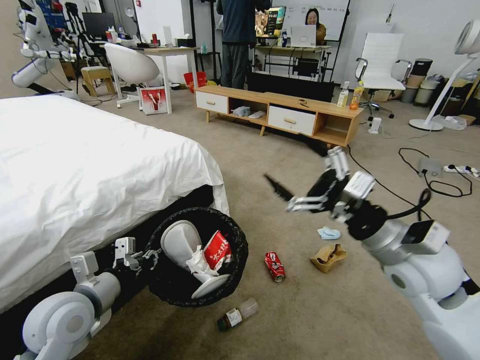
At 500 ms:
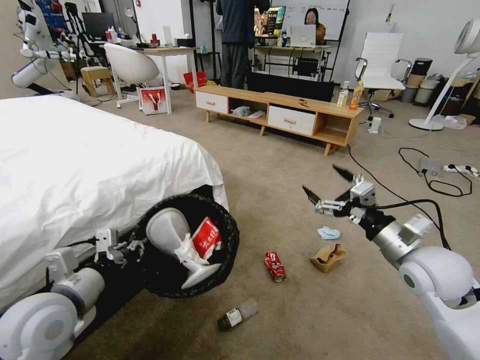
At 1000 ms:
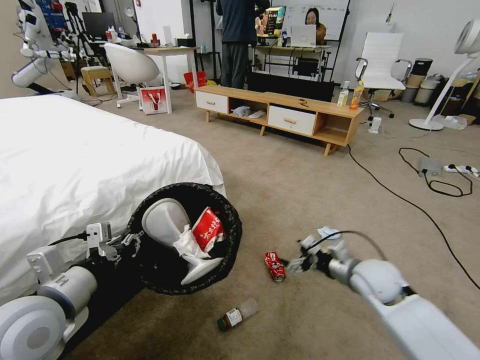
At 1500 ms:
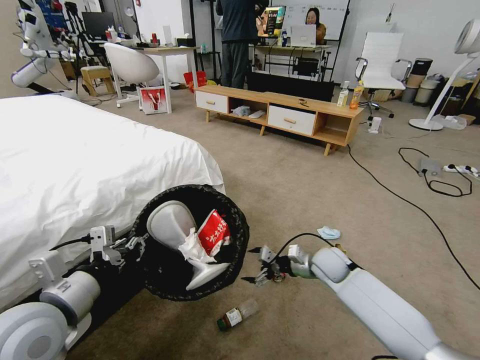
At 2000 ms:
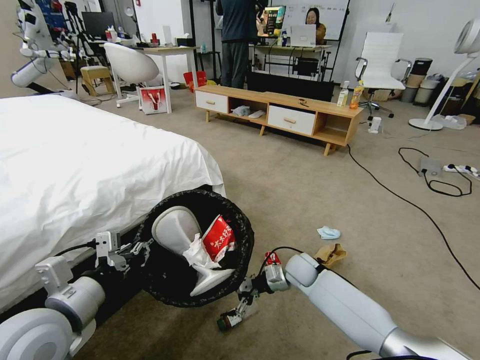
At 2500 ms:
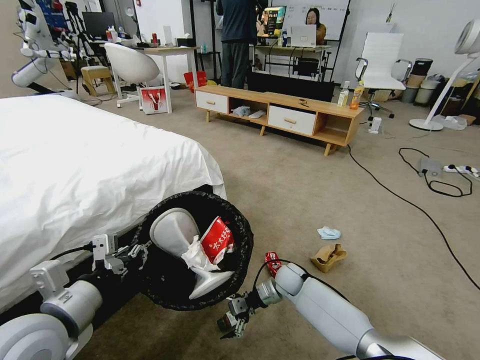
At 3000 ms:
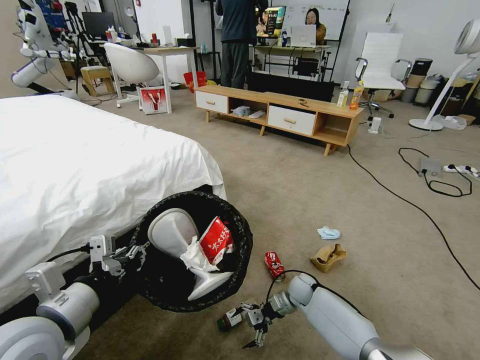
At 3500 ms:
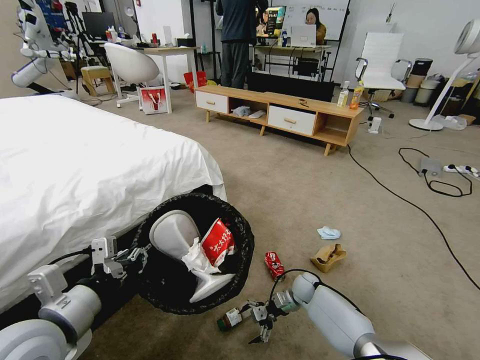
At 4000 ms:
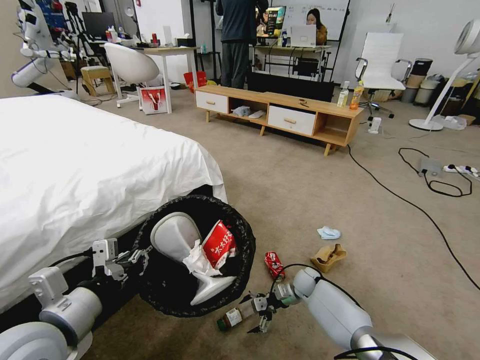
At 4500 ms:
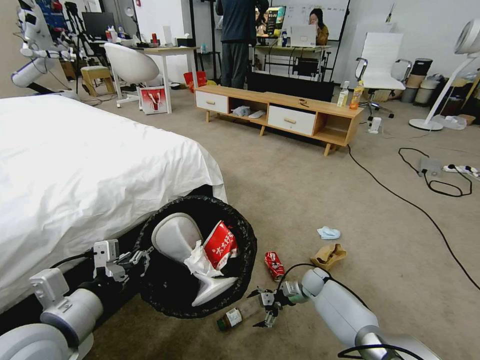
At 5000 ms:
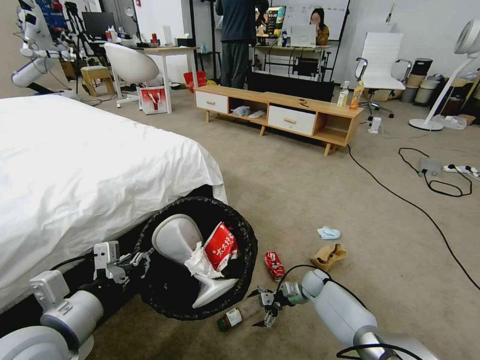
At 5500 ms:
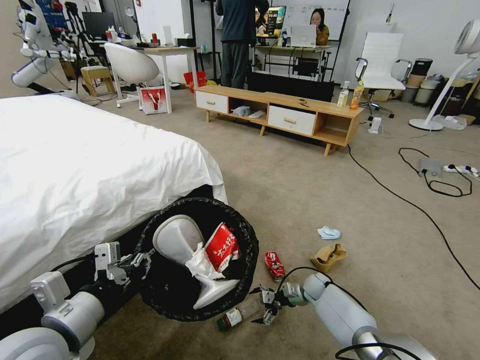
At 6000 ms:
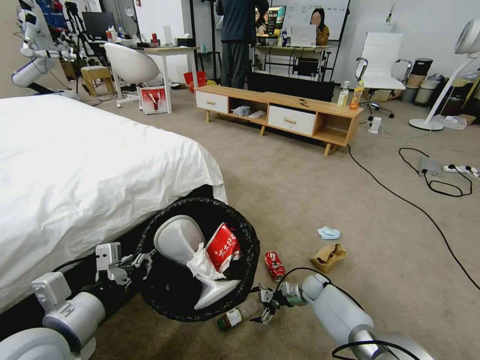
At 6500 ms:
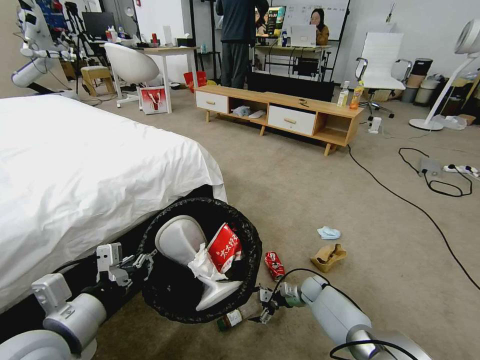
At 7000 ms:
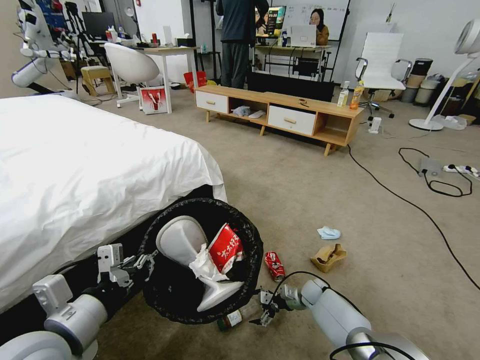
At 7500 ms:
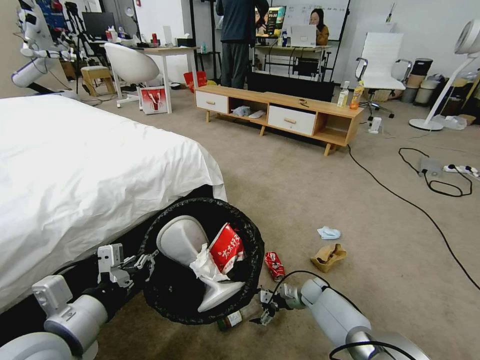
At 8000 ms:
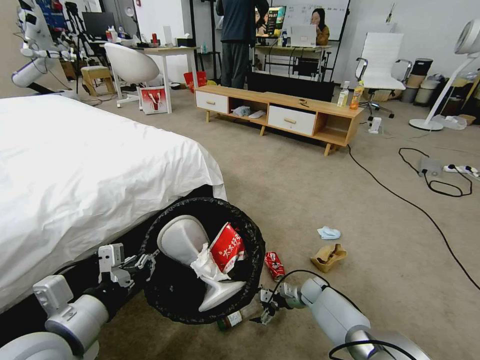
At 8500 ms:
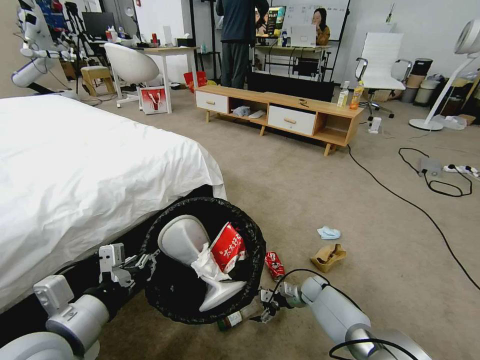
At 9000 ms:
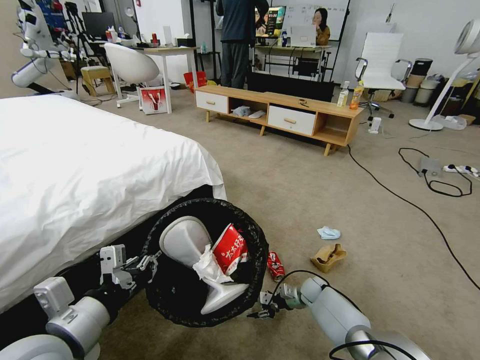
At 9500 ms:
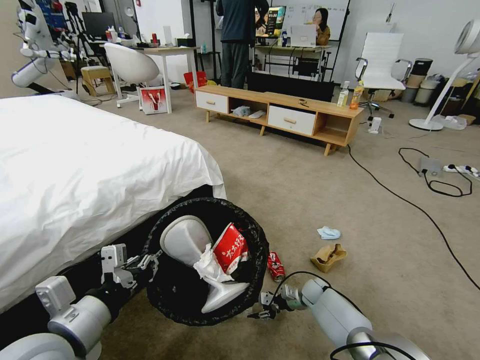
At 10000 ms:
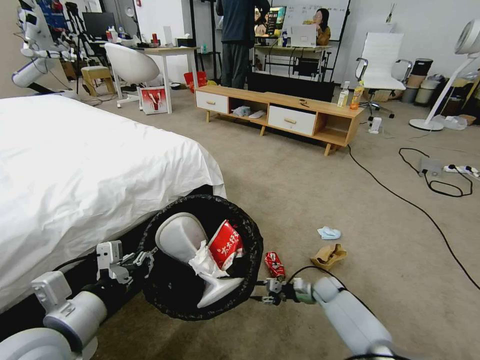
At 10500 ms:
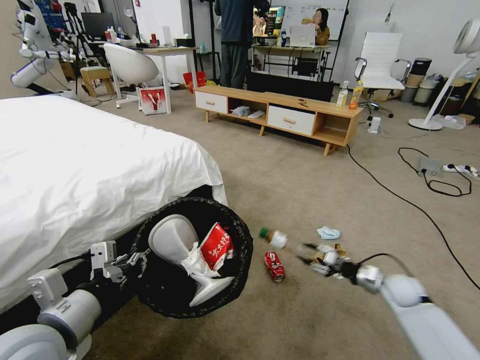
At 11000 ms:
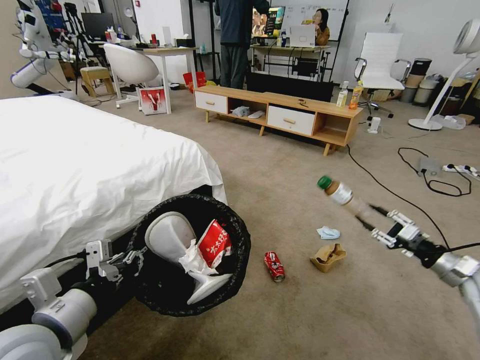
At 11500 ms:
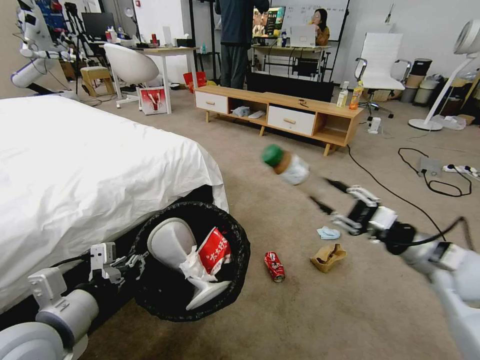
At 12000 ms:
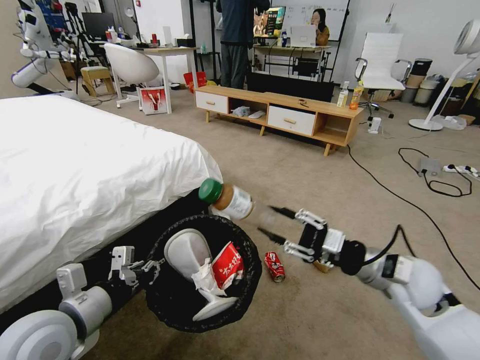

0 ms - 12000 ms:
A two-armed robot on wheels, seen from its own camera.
Task of the whole recording: Pick up the trash bin and place the garbage on the floor into it.
0 ms - 2000 ms: The left gripper is displaced backward and upward by some 5 cm; the right gripper heads downward and forward, covering some 30 cm.
2000 ms - 4000 ms: The right gripper moves downward, approximately 10 cm.
4000 ms - 6000 ms: The grippers make only small movements.
6000 ms - 8000 ms: The grippers make only small movements.
8000 ms - 10000 ms: The right gripper closes its fingers.
10000 ms - 12000 ms: The left gripper moves approximately 5 cm; the right gripper travels upward and backward by some 35 cm.

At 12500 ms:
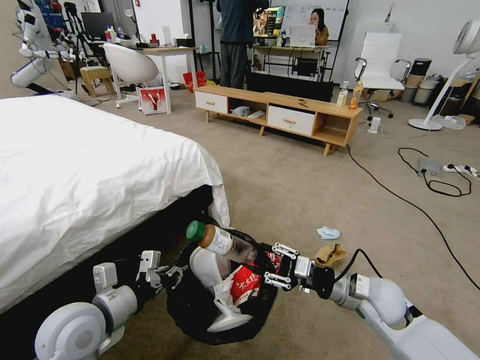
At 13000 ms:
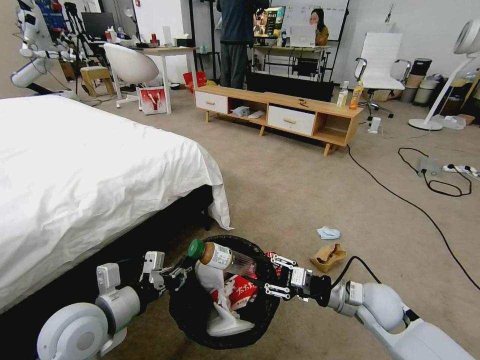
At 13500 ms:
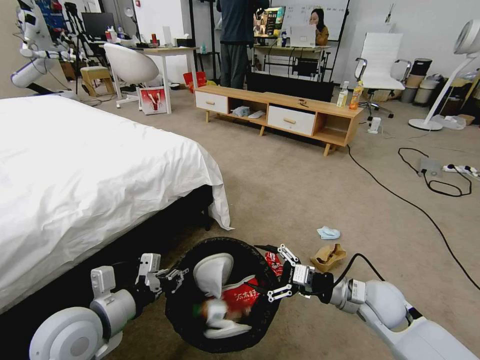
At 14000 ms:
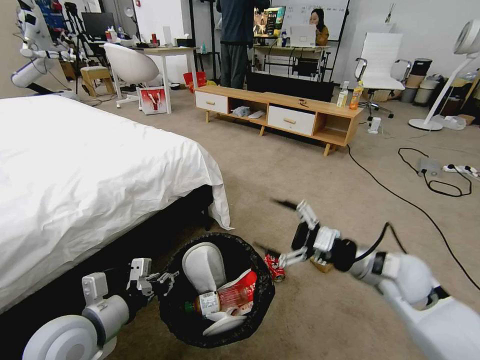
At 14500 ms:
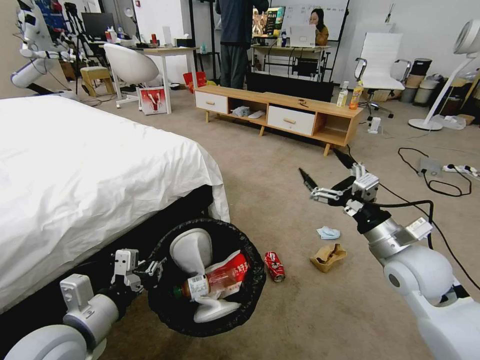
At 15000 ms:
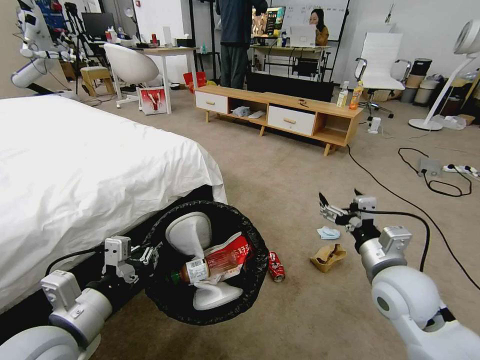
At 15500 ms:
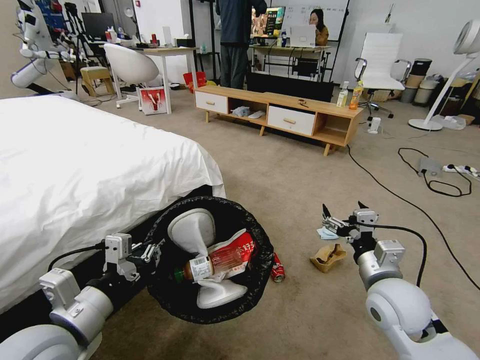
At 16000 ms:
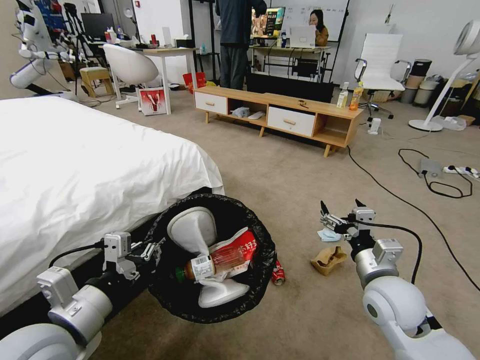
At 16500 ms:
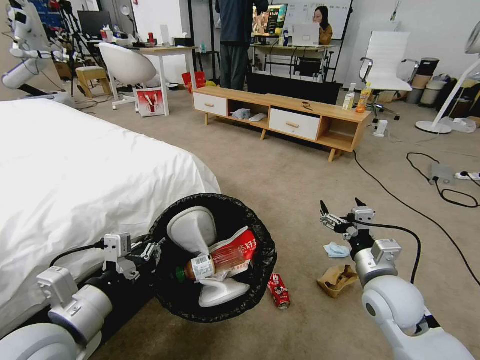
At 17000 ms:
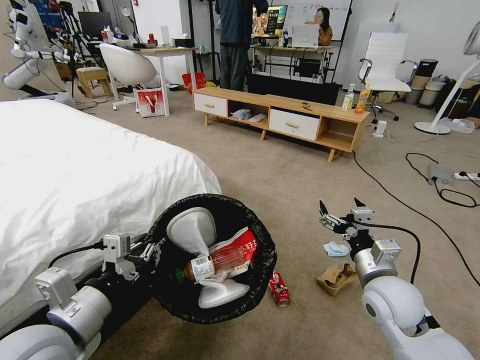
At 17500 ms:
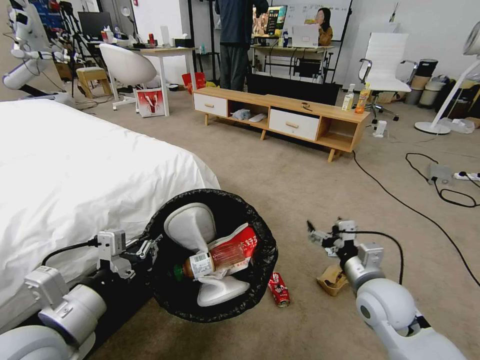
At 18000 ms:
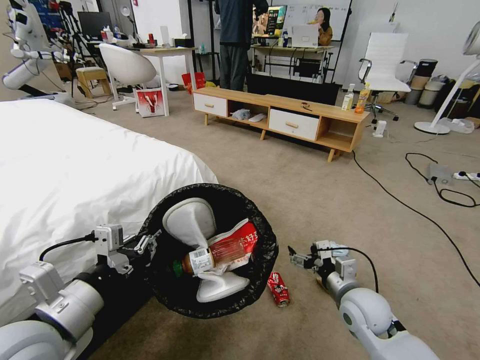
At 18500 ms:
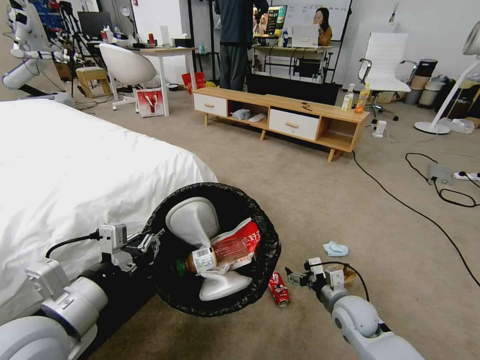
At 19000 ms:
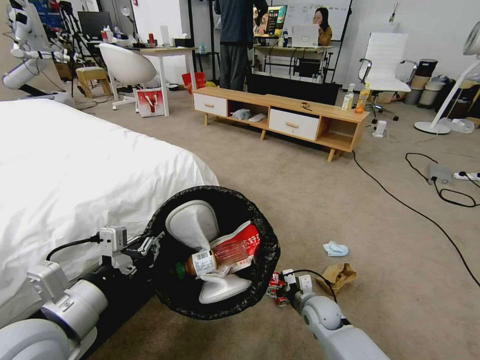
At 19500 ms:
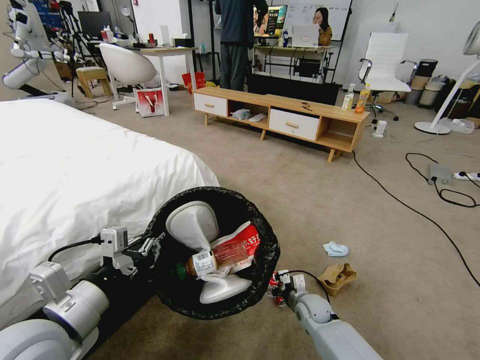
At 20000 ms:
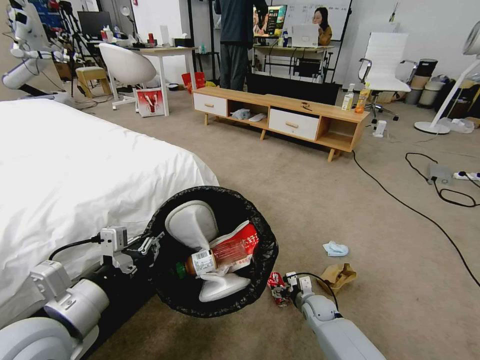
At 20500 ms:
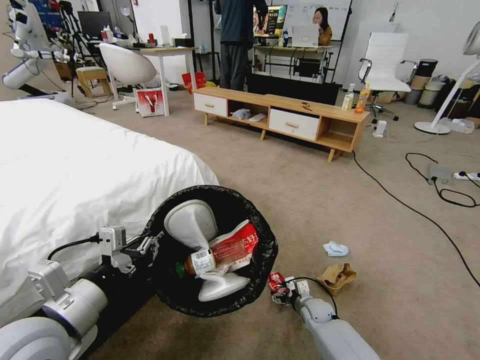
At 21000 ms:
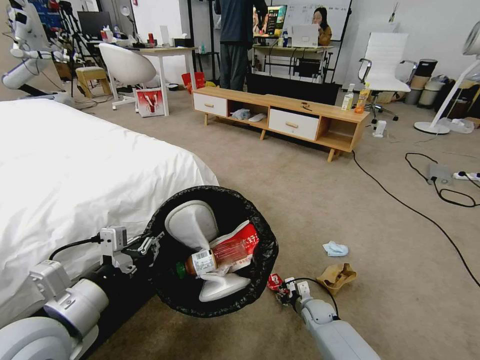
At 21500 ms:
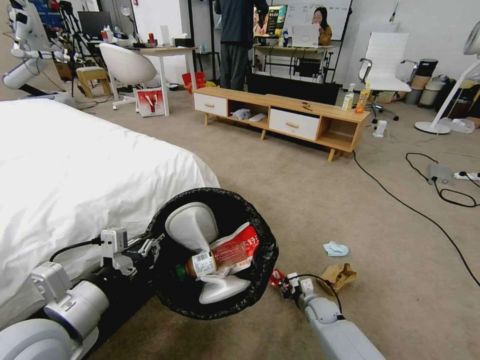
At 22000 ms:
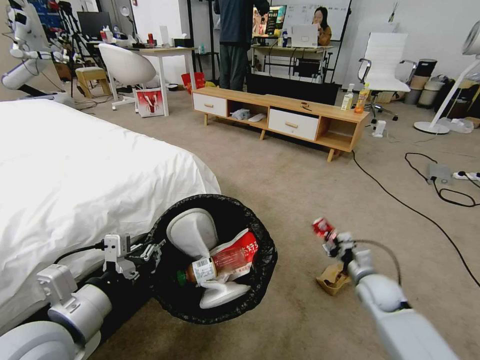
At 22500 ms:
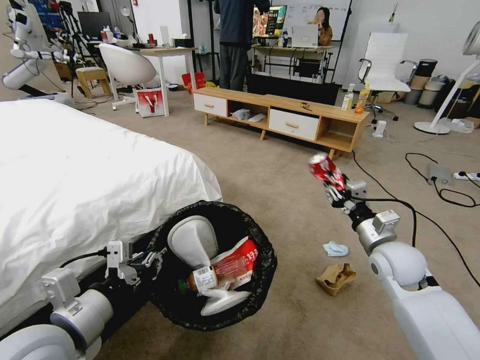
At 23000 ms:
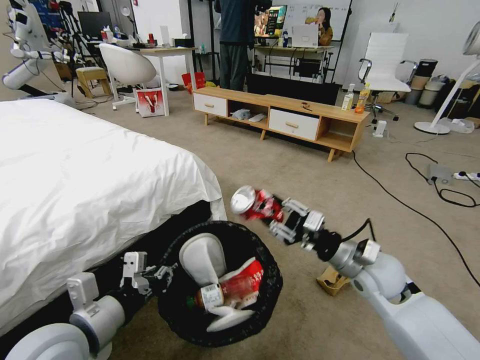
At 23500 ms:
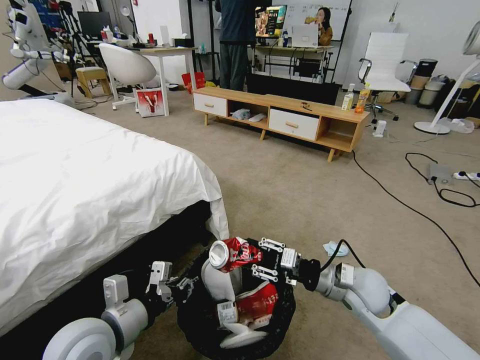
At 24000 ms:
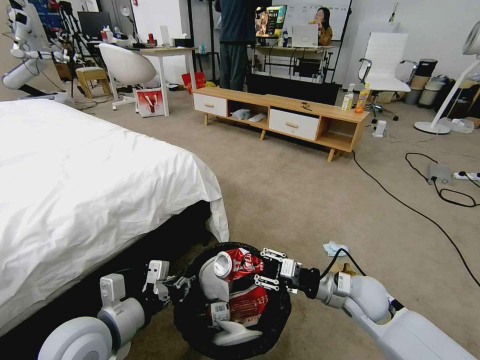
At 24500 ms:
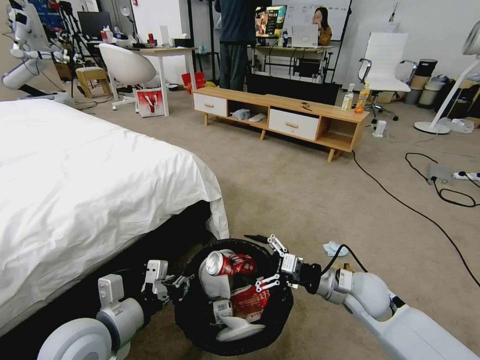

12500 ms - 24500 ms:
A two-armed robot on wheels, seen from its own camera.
Task of the whole recording: Pick up the trash bin and place the garbage on the floor into it.
12500 ms - 14500 ms: The left gripper changes place by approximately 5 cm. Meanwhile the right gripper goes some 10 cm upward, and opens.
14500 ms - 16500 ms: The right gripper heads downward, covering some 5 cm.
16500 ms - 18500 ms: The right gripper goes approximately 15 cm downward.
18500 ms - 20500 ms: The right gripper travels downward and forward by some 15 cm.
20500 ms - 22500 ms: The right gripper goes about 30 cm upward, and closes up.
22500 ms - 24500 ms: The right gripper travels downward and to the left by roughly 10 cm, and opens up. The left gripper is displaced downward by roughly 5 cm.

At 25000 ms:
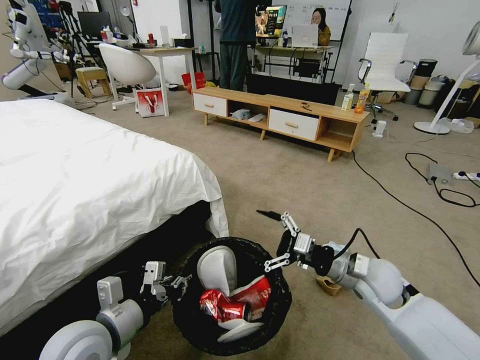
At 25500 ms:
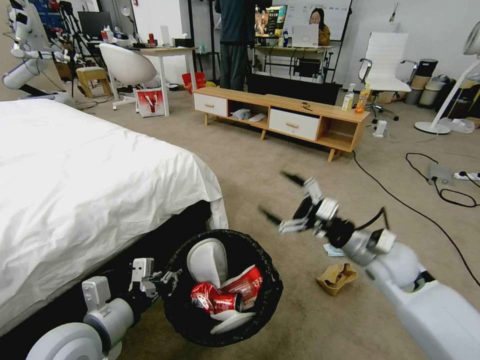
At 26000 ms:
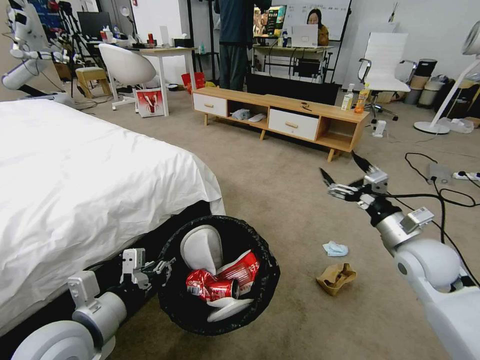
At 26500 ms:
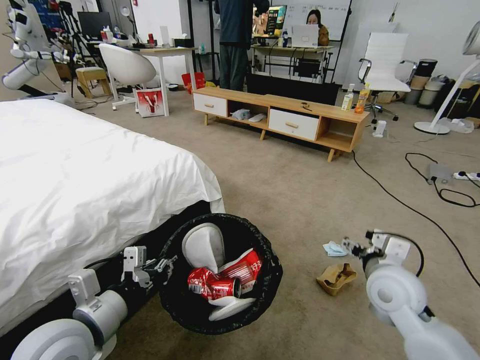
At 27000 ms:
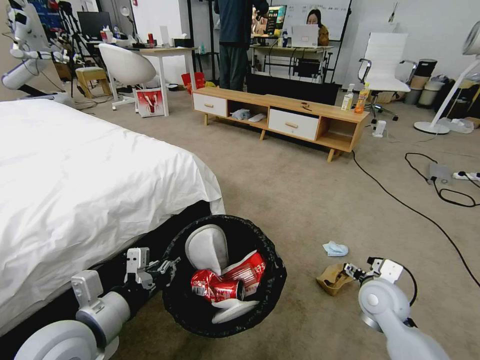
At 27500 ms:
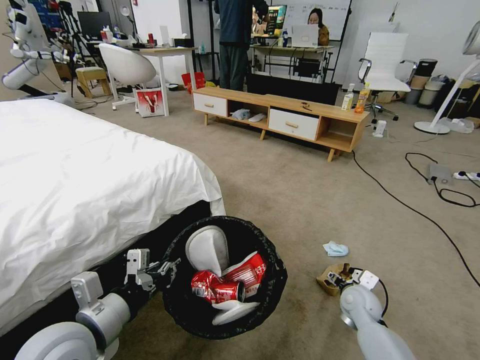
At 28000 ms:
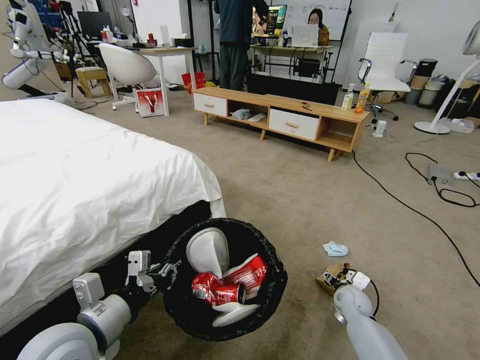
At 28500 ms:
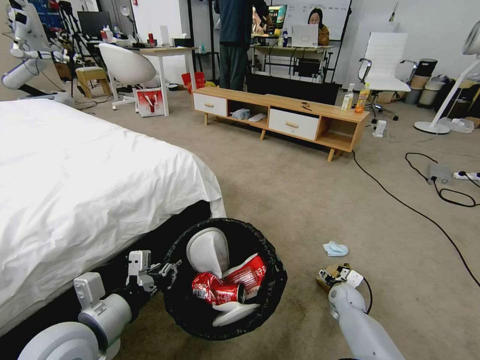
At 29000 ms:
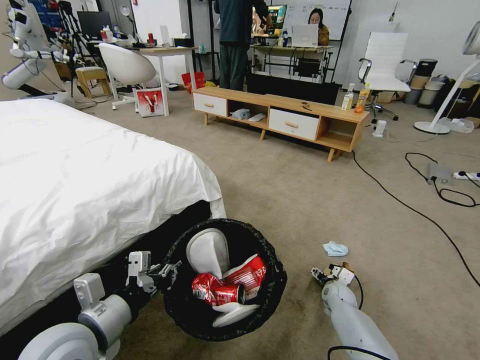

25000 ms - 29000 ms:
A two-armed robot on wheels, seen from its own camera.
Task of the whole recording: Pick up the trash bin and place the garbage on the floor into it.
25000 ms - 27000 ms: The right gripper travels downward by about 5 cm.
27000 ms - 29000 ms: The right gripper goes some 25 cm downward and forward.
